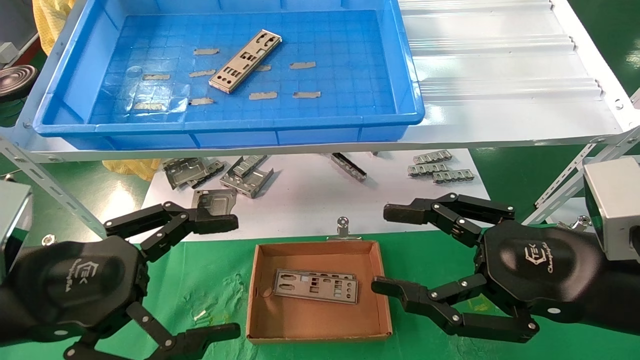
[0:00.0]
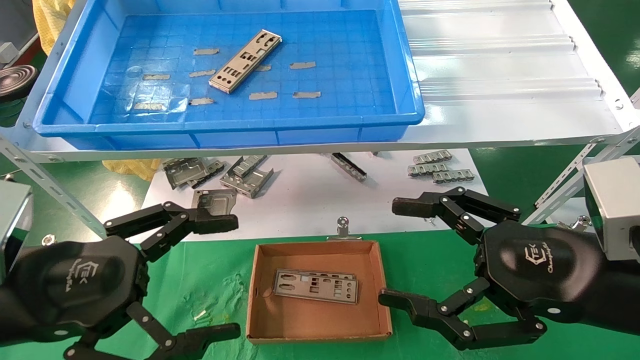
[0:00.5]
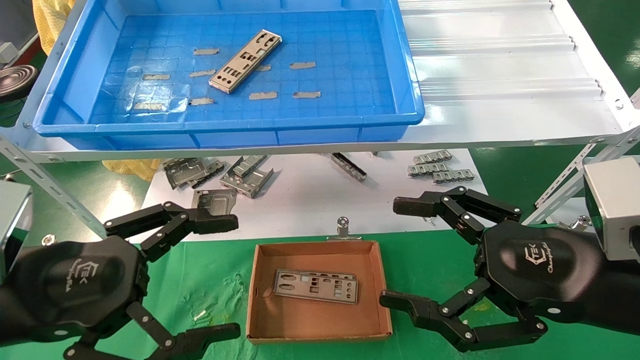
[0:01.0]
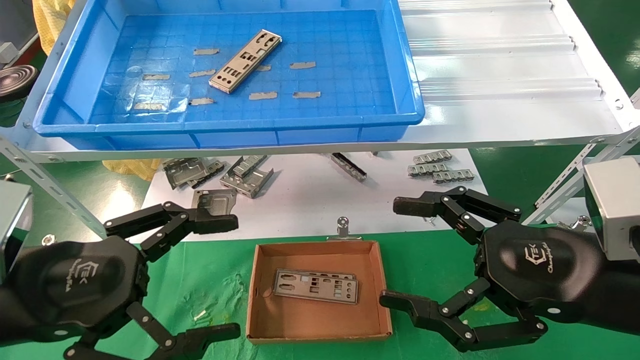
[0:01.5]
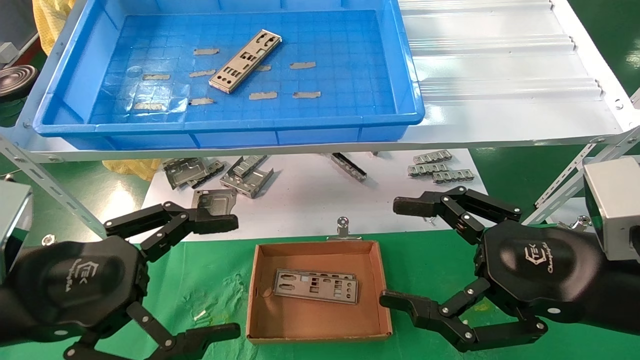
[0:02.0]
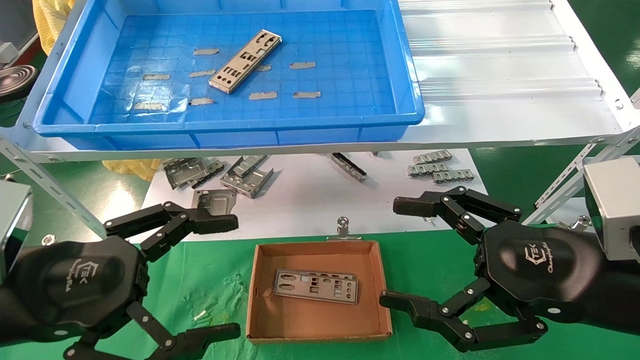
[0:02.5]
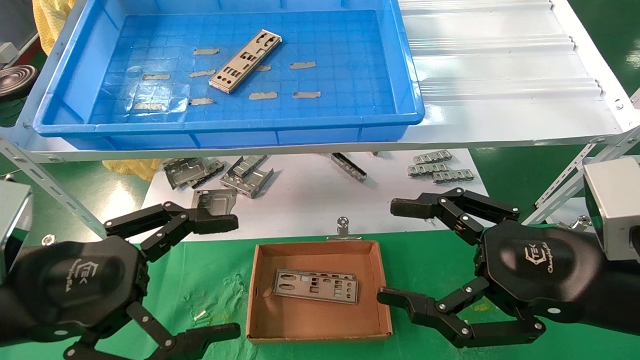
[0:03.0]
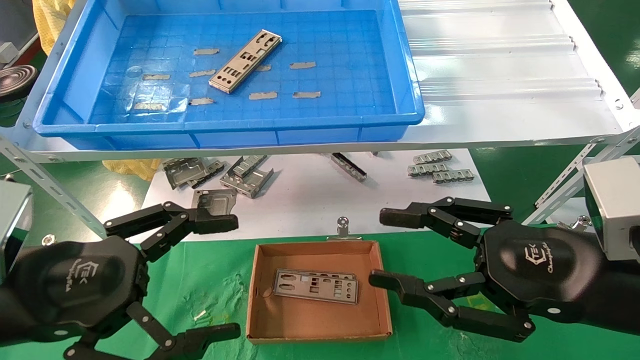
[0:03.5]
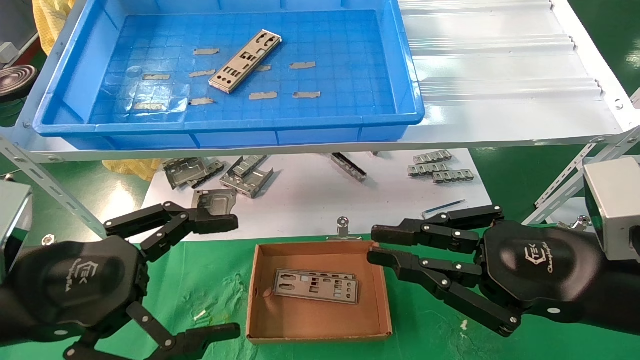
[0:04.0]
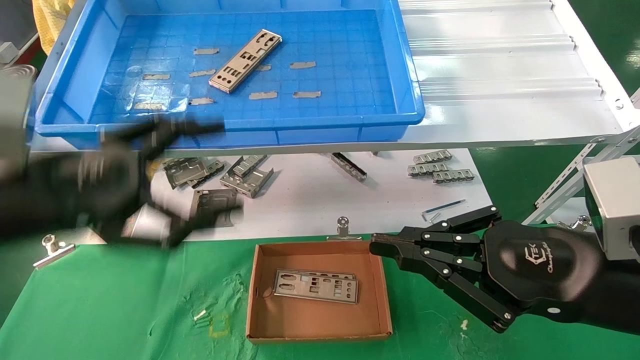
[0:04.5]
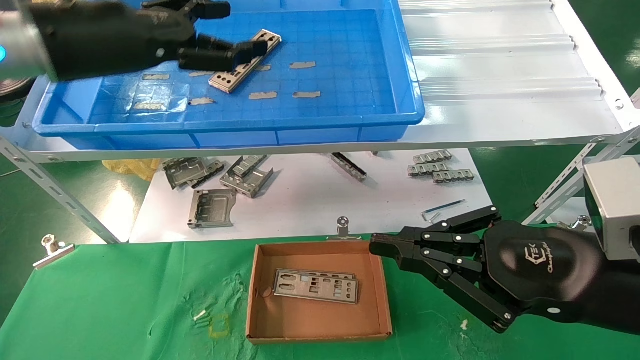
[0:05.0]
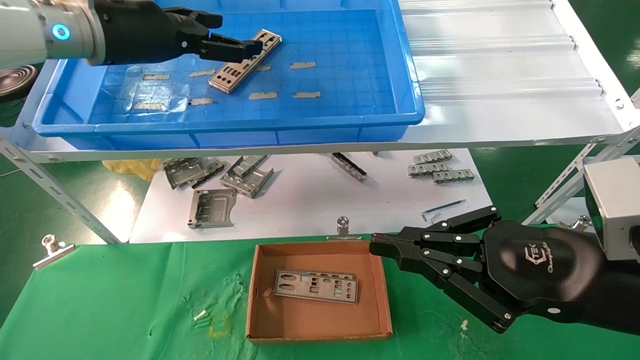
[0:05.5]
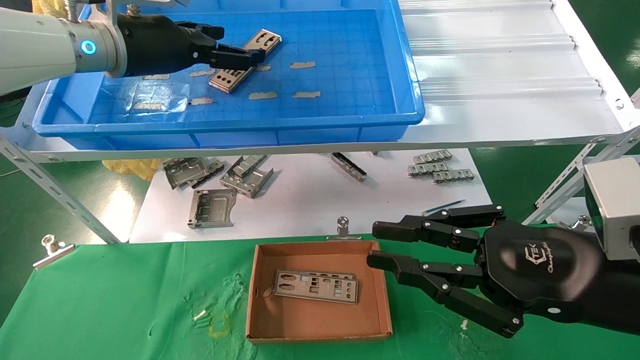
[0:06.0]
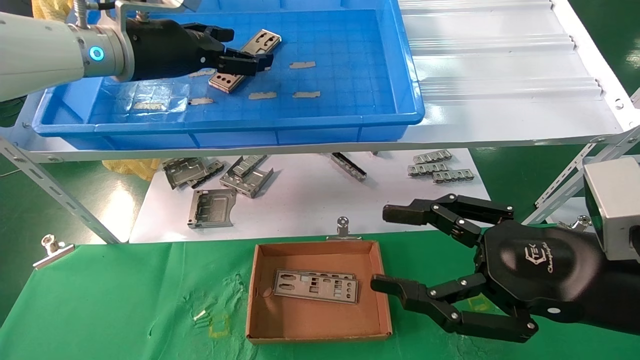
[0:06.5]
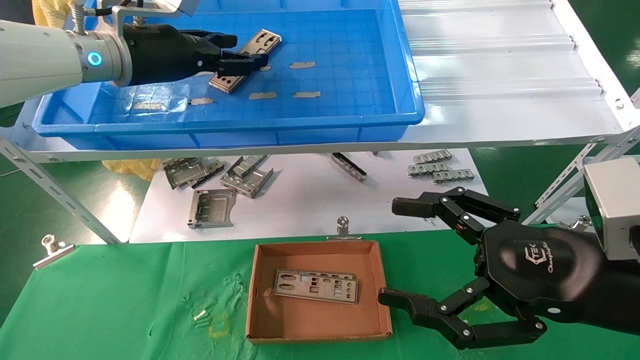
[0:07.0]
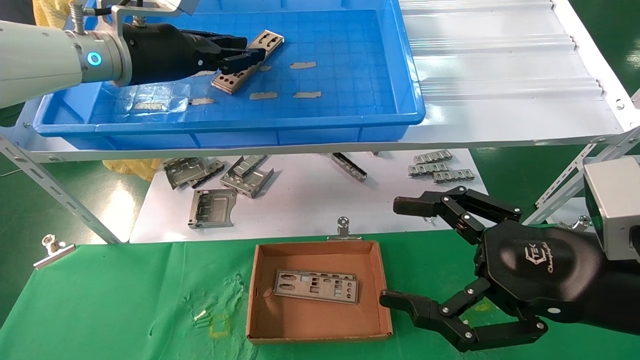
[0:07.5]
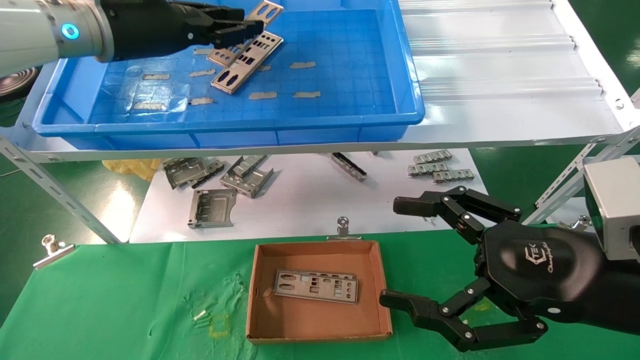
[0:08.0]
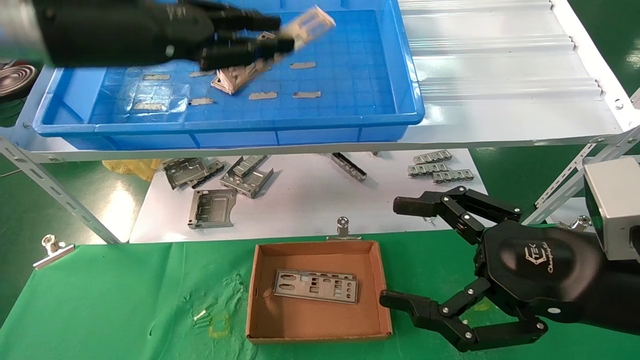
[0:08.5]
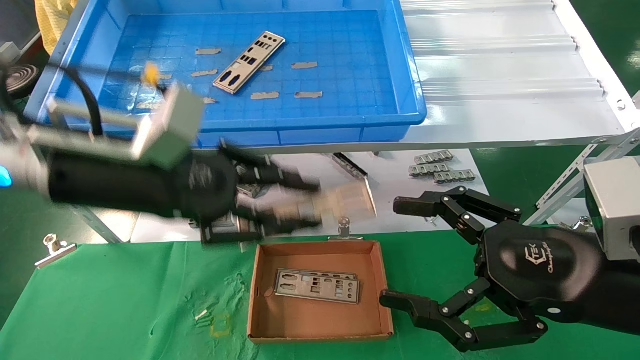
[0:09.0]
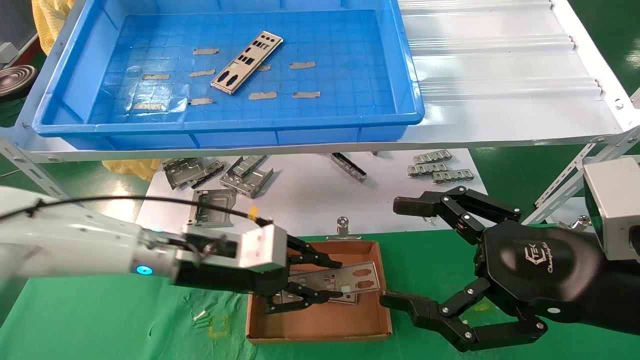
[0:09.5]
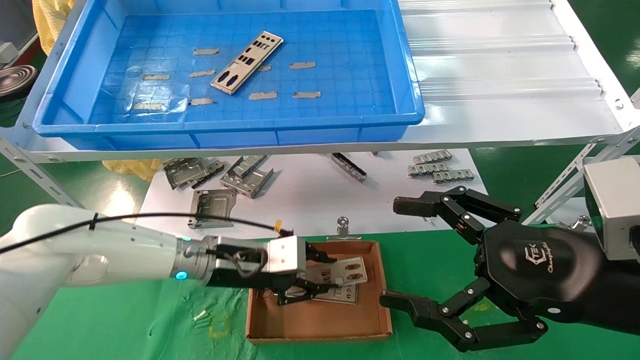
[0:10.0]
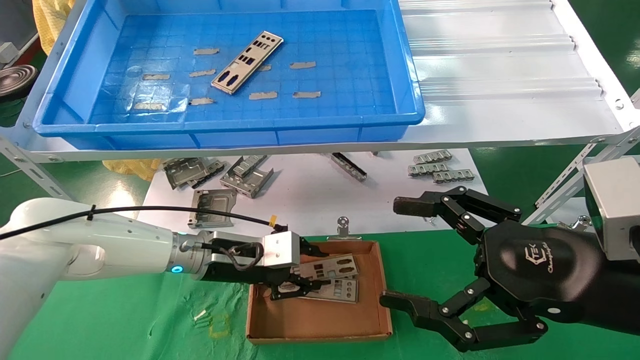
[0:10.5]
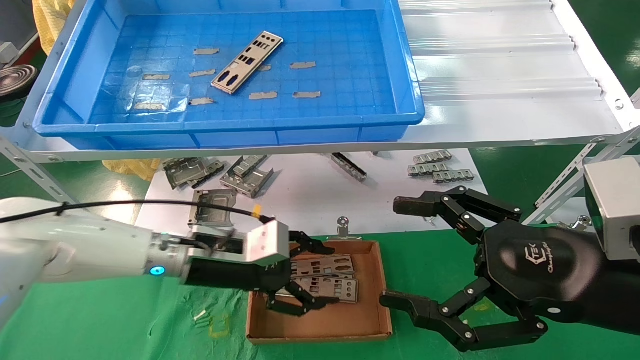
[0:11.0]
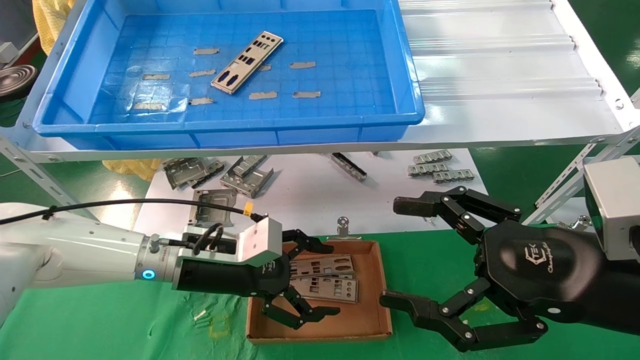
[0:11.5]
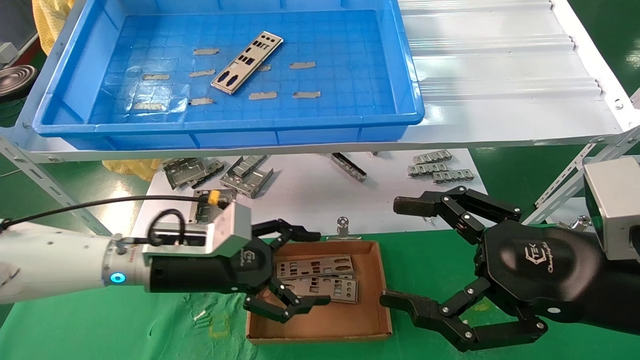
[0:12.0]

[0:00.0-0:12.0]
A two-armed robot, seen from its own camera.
Task of the whole recording: pick up the parts on the tray and put them in the cardboard box.
Step, 0:05.0 to 0:07.5: Pick up the IO bracket from the container box.
Step, 0:08.0 to 0:10.5: Place the IO bracket into the ingredient slot.
0:00.0 to 0:02.0: Neither gripper changes place.
0:02.0 to 0:04.0: The right gripper closes its fingers.
0:04.0 to 0:06.0: The left gripper is displaced forward and upward by about 30 cm.
0:06.0 to 0:08.0: The left gripper closes up, while the right gripper opens its fingers.
0:08.0 to 0:10.0: The left gripper travels downward by some 30 cm.
0:10.0 to 0:12.0: The left gripper moves roughly 5 cm, and opens its fingers.

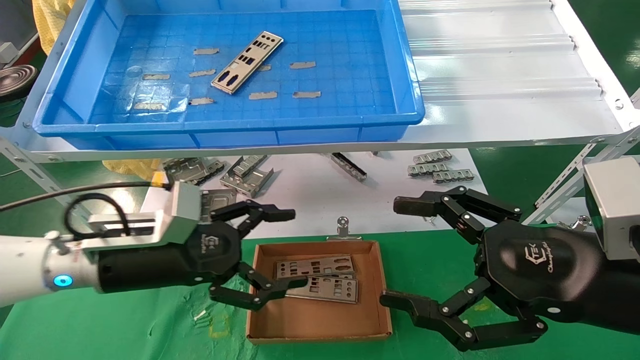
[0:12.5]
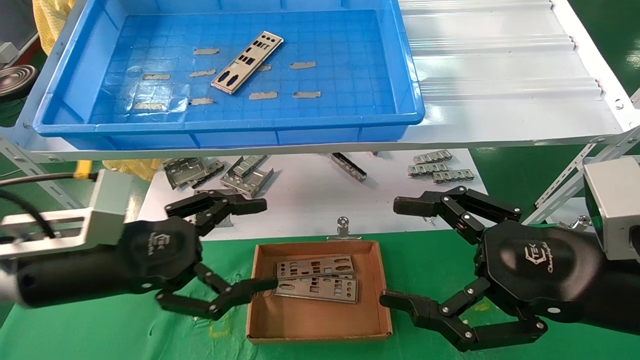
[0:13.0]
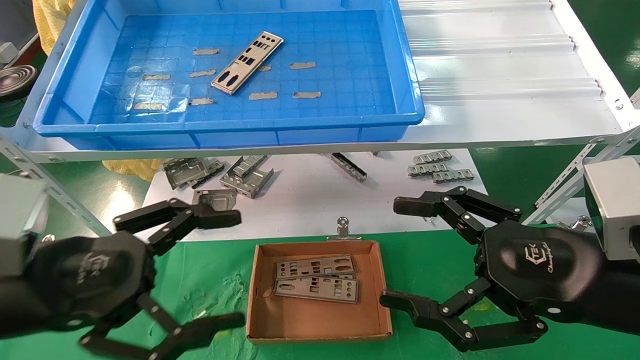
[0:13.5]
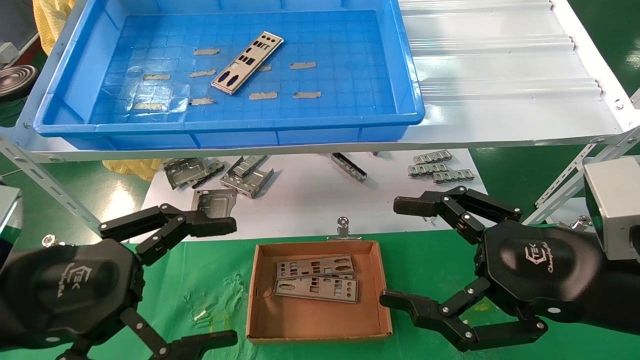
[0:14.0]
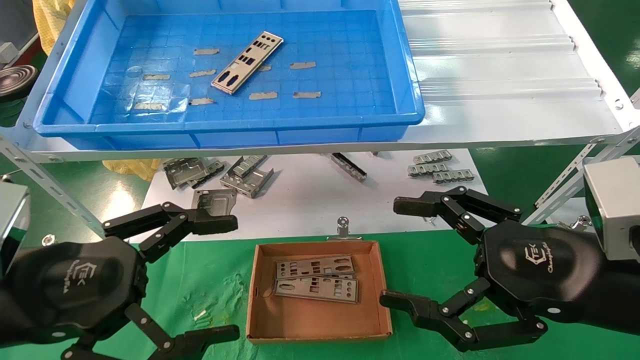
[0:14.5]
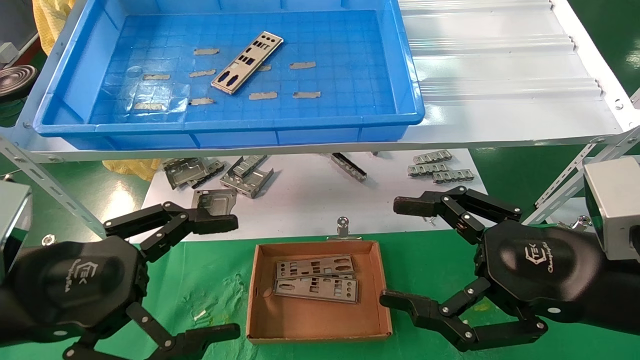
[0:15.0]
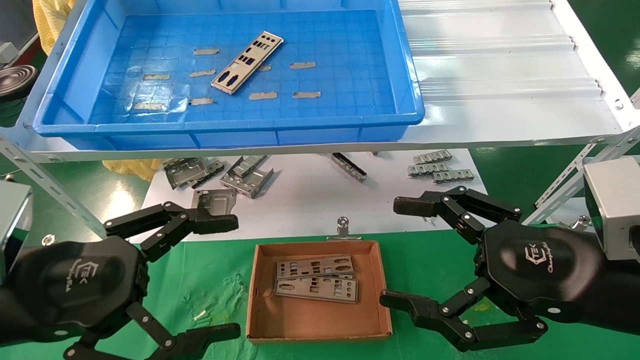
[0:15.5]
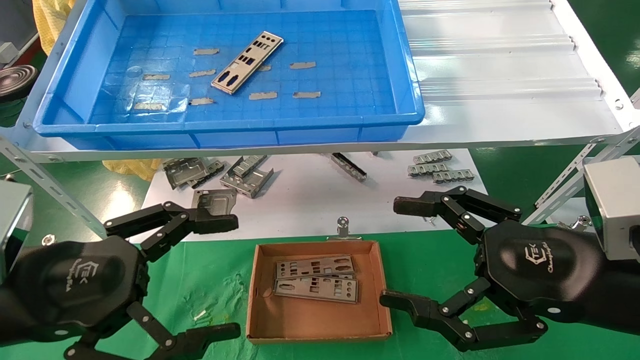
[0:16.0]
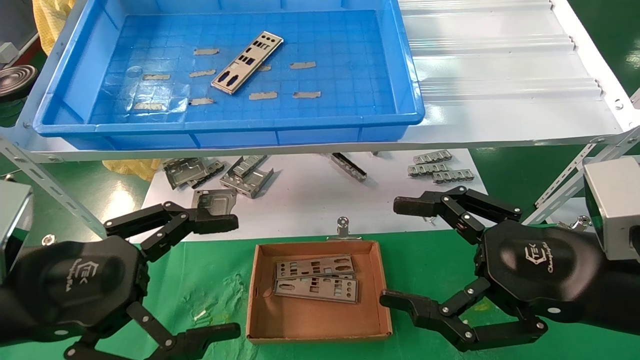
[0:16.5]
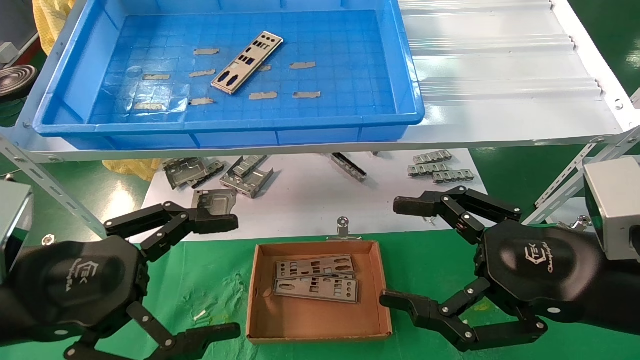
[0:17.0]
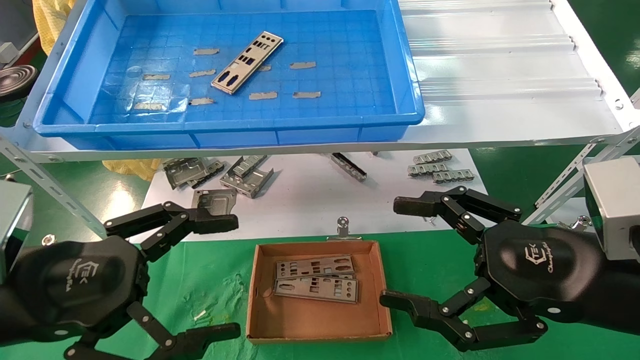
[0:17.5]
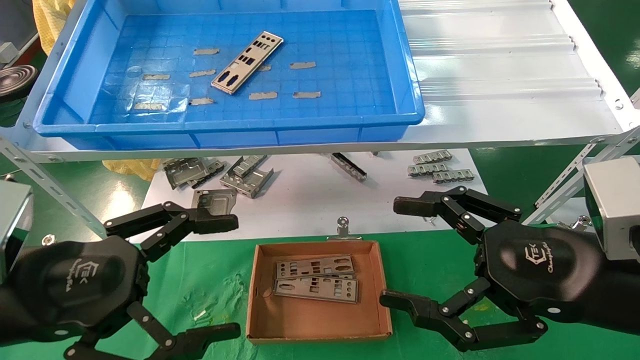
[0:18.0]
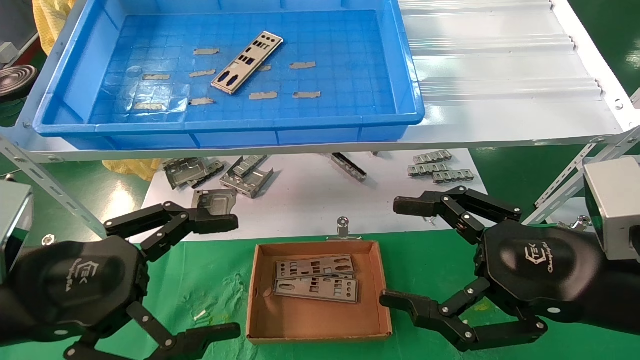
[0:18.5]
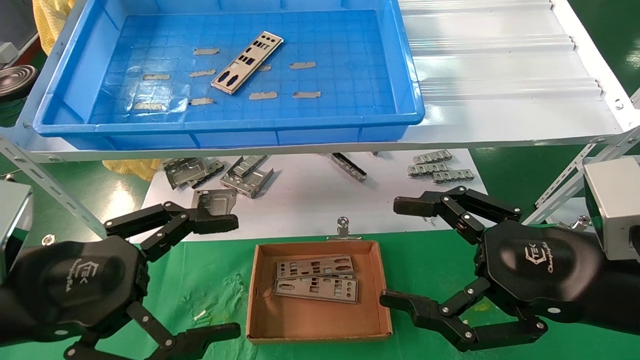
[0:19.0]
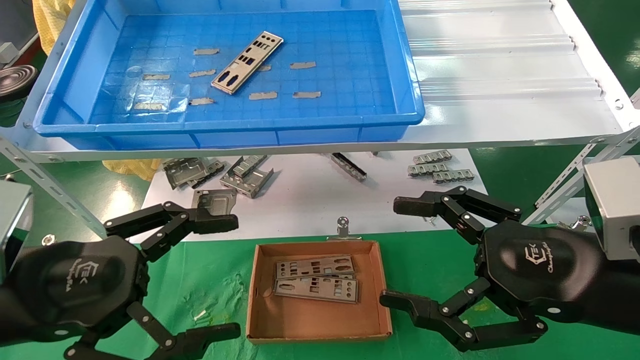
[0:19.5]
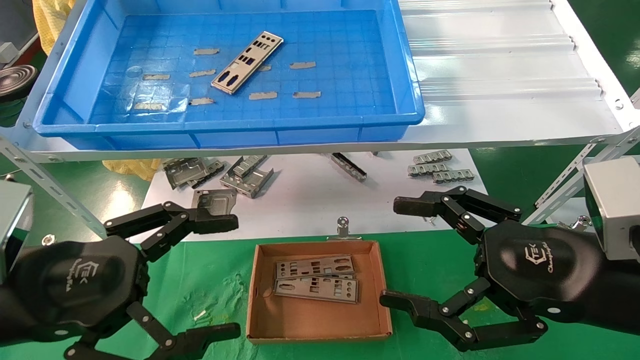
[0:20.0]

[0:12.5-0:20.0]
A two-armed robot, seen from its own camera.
Task of the whole recording: pick up the parts on the tray and put them in the cardboard box.
0:12.5 to 0:14.5: The left gripper goes some 15 cm backward.
0:14.5 to 0:20.0: The two grippers keep their place.
